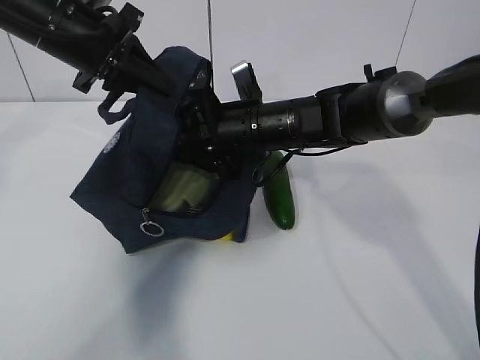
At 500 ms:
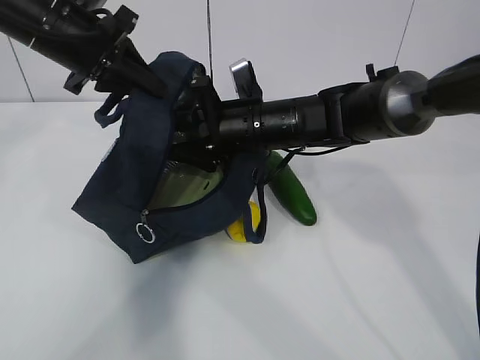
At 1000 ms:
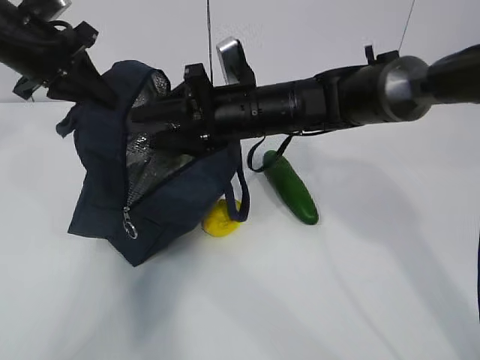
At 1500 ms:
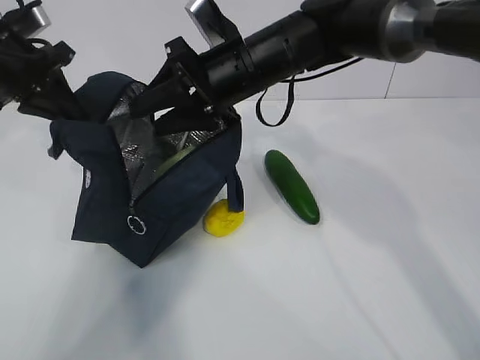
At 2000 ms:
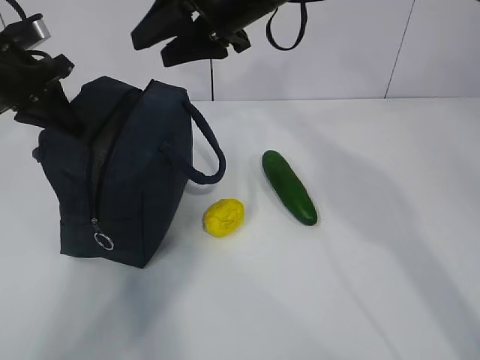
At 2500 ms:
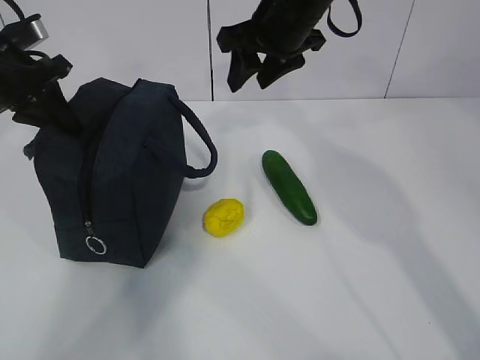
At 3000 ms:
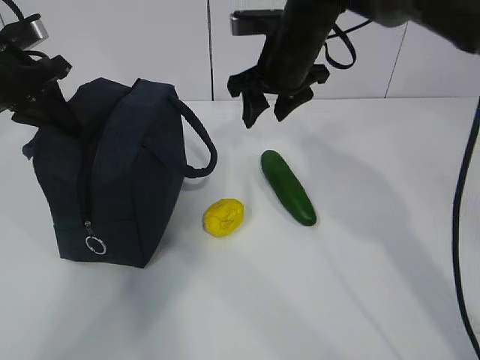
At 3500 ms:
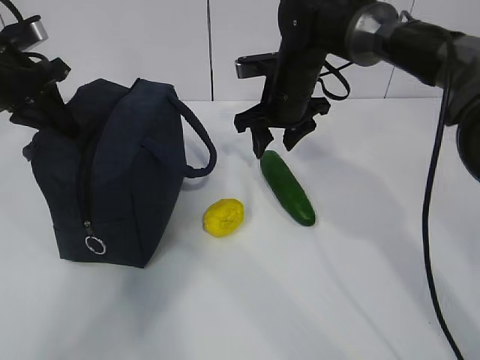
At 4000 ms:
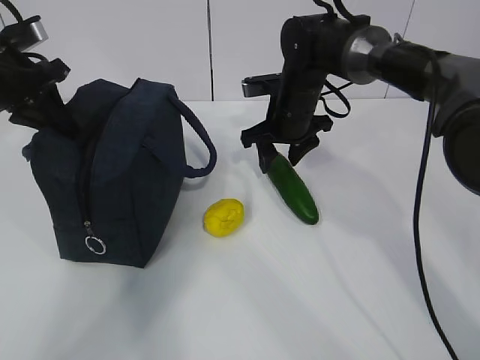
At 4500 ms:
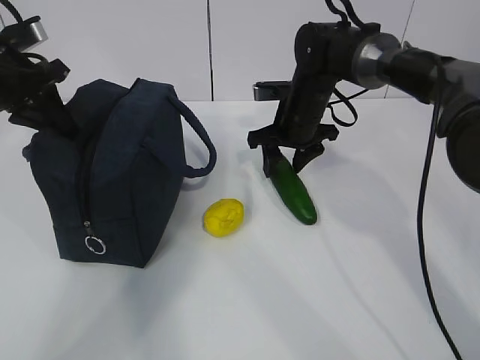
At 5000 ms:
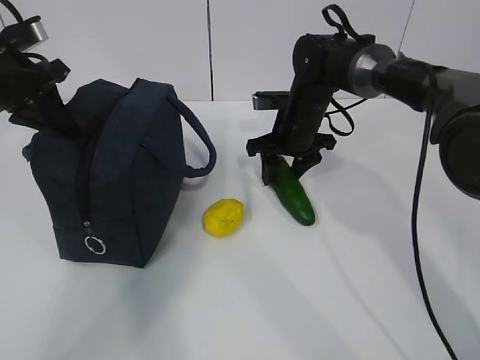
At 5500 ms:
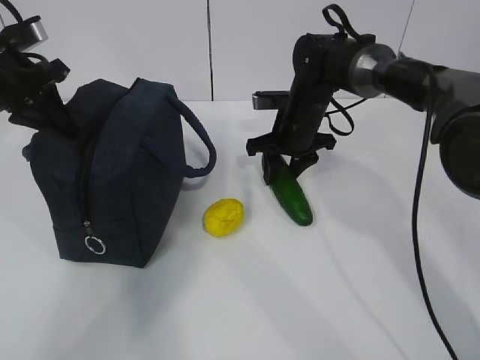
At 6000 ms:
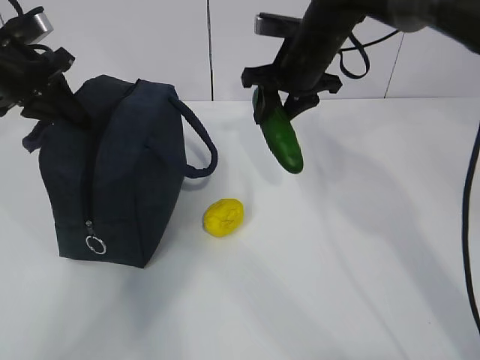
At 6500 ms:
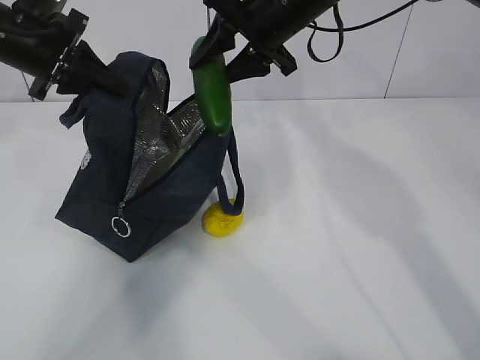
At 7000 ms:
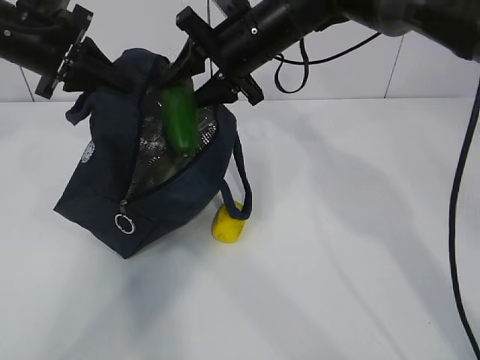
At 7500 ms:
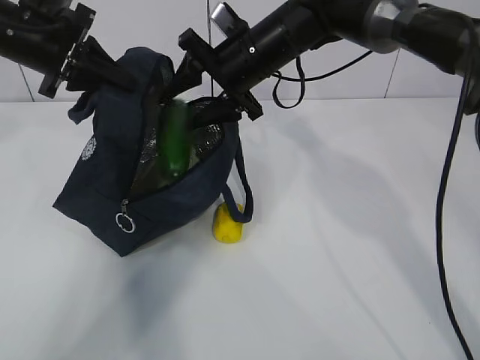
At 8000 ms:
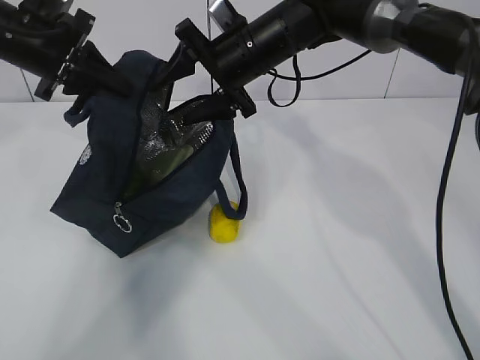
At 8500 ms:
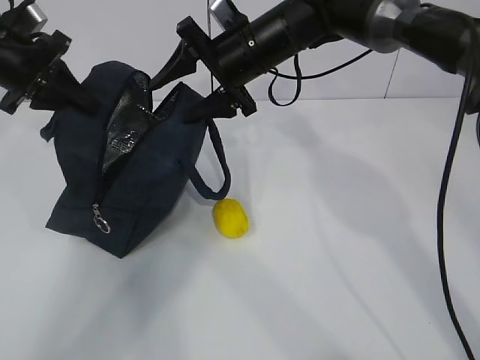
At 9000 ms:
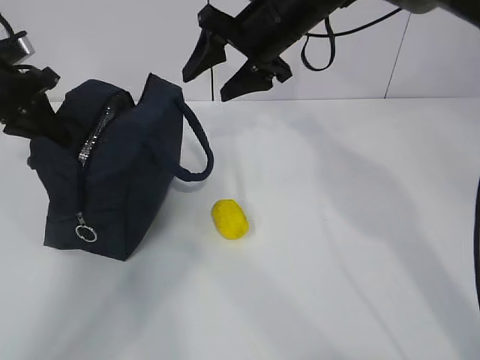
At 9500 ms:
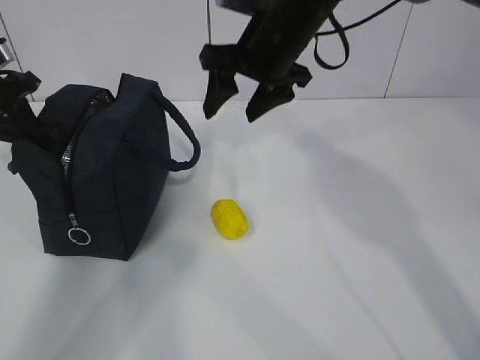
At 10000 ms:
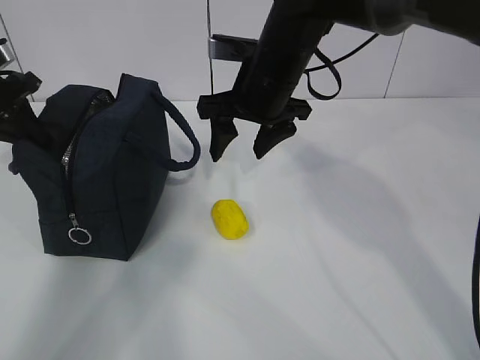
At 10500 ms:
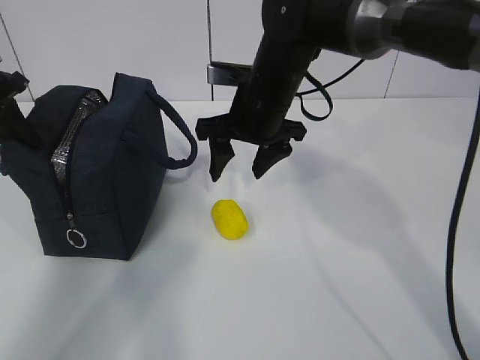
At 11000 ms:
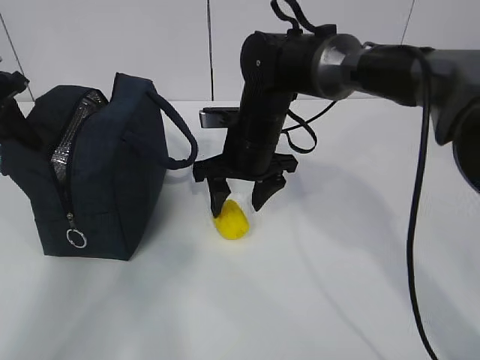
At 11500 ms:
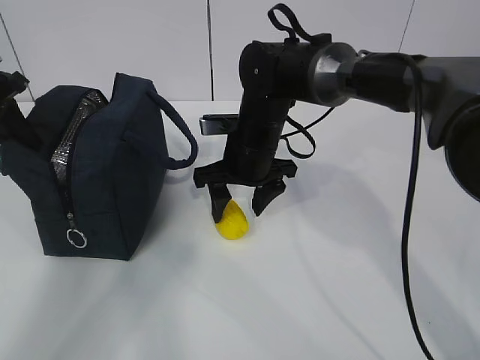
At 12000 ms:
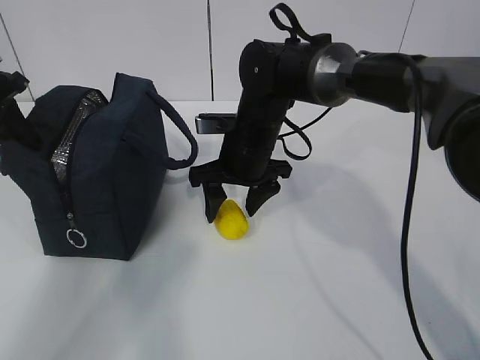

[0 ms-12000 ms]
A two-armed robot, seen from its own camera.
Step, 1500 ms to 2500 ms: Place it into the bag with your right hand.
Step, 3000 ms to 7500 ms: Grab the lemon with your right hand.
Step, 8000 ms to 11000 ms: Secure the lunch bag with your left hand.
0 ms to 2000 ms: The right gripper moves upward, about 15 cm, while the left gripper moves to the left, some 10 cm.
2000 ms to 4000 ms: The right gripper heads downward, covering roughly 15 cm.
4000 ms to 6000 ms: The right gripper moves upward, some 5 cm.
6000 ms to 8000 ms: The right gripper moves to the left, about 5 cm, and opens.
8000 ms to 10000 ms: The left gripper heads to the left and downward, covering approximately 10 cm.
10000 ms to 12000 ms: The right gripper is displaced downward by roughly 10 cm.

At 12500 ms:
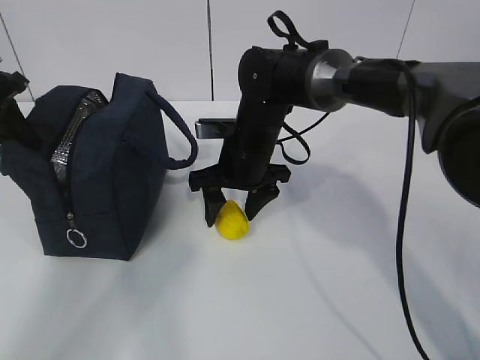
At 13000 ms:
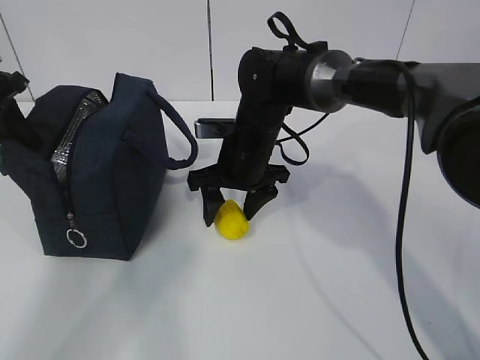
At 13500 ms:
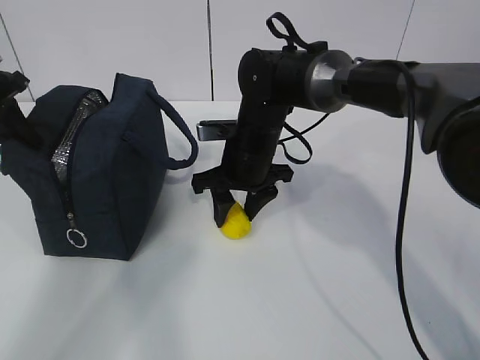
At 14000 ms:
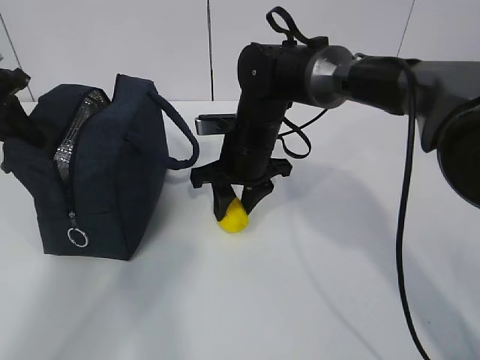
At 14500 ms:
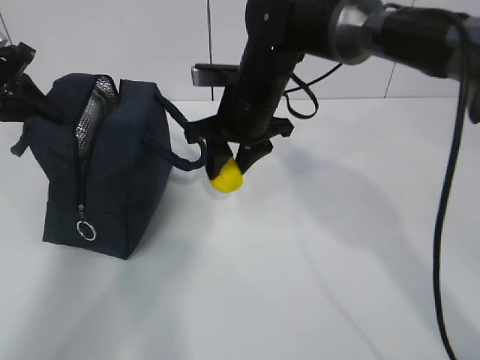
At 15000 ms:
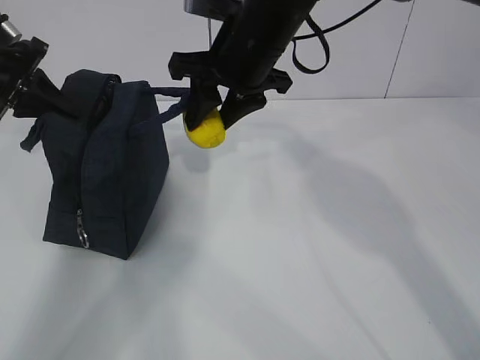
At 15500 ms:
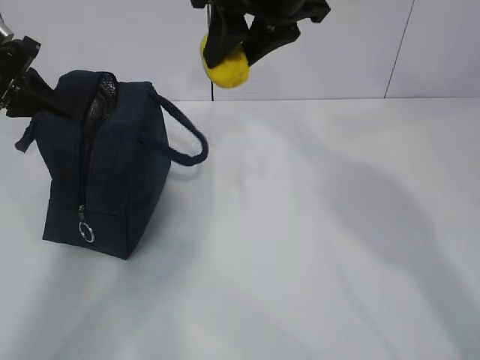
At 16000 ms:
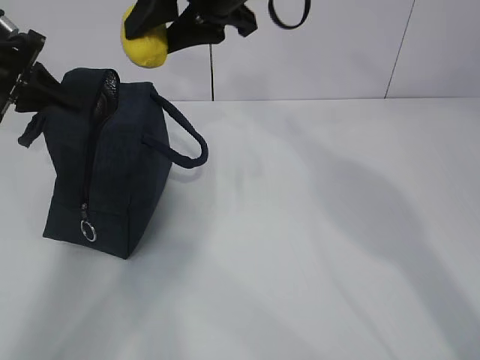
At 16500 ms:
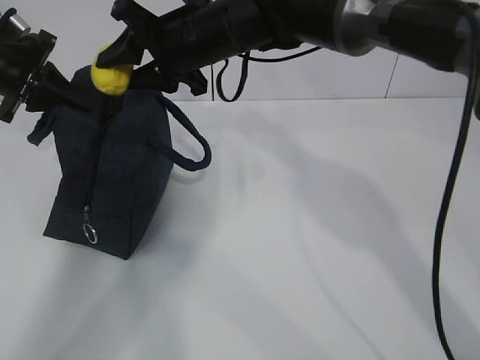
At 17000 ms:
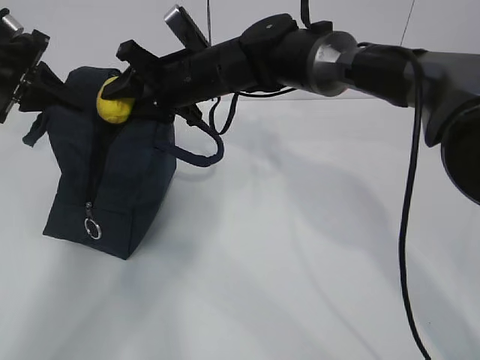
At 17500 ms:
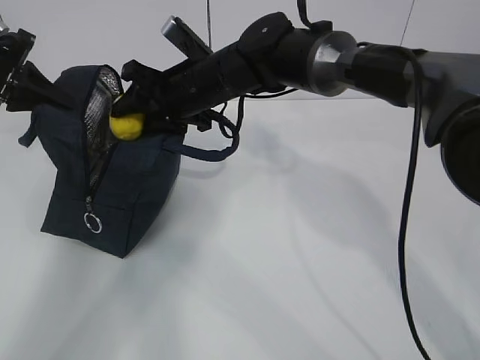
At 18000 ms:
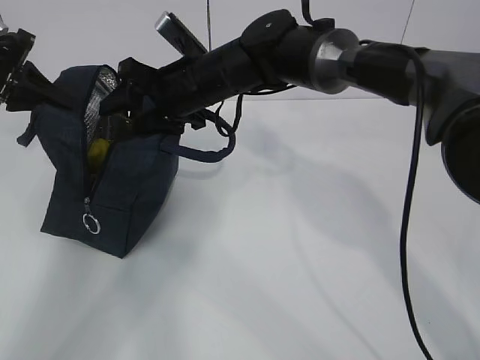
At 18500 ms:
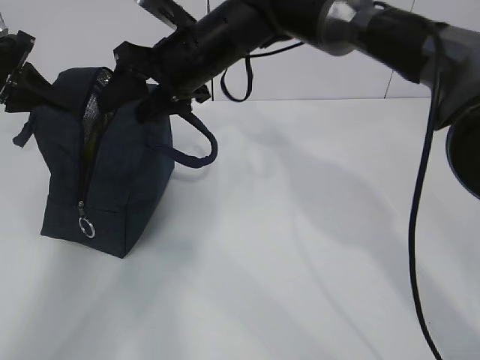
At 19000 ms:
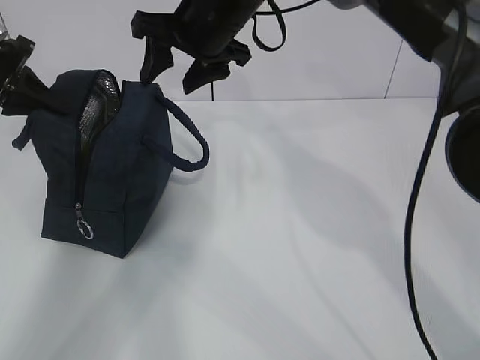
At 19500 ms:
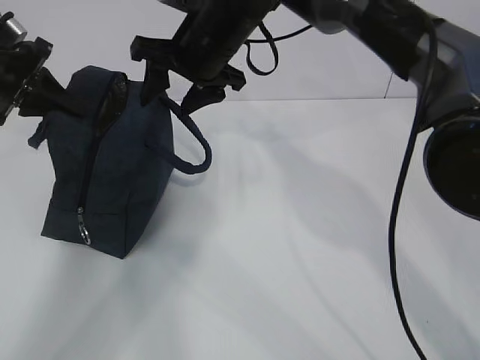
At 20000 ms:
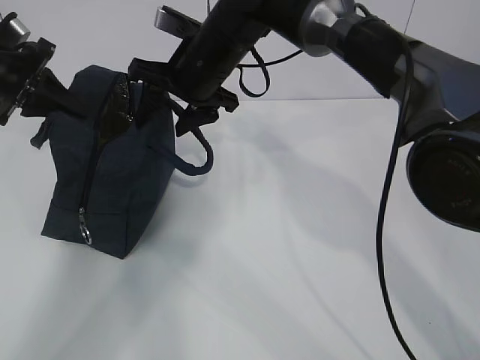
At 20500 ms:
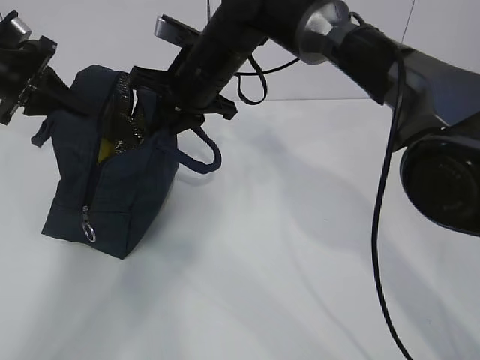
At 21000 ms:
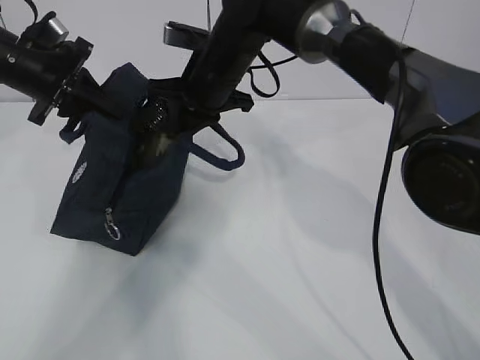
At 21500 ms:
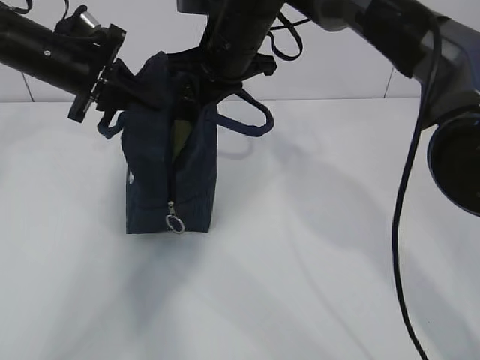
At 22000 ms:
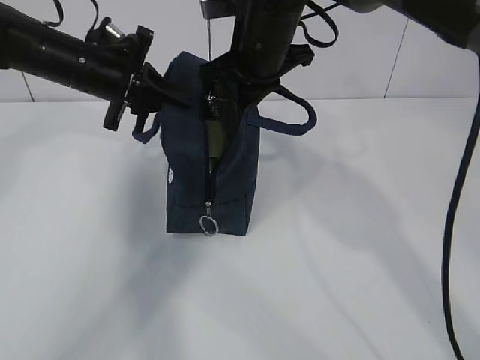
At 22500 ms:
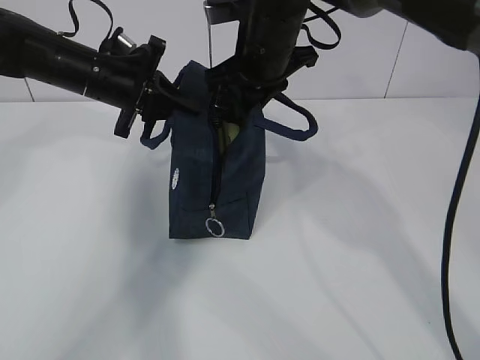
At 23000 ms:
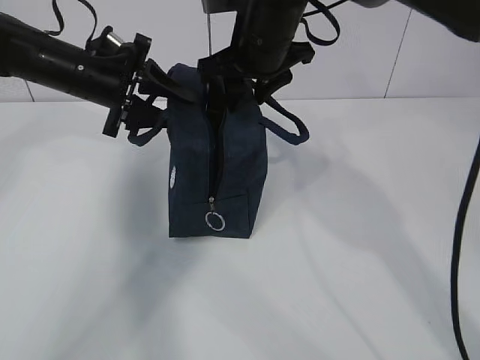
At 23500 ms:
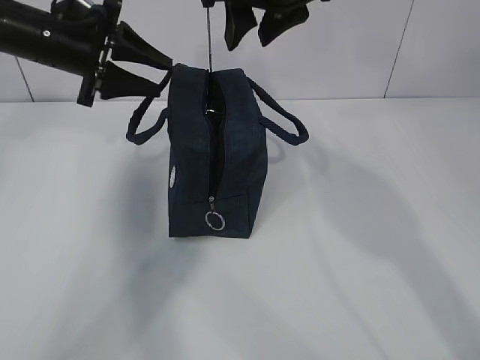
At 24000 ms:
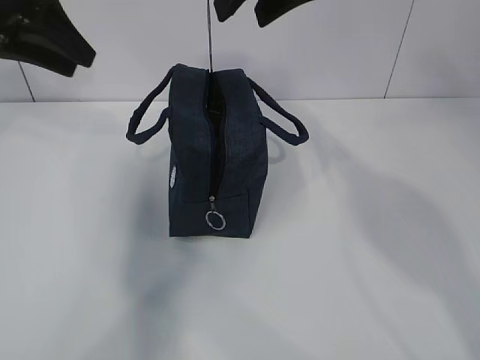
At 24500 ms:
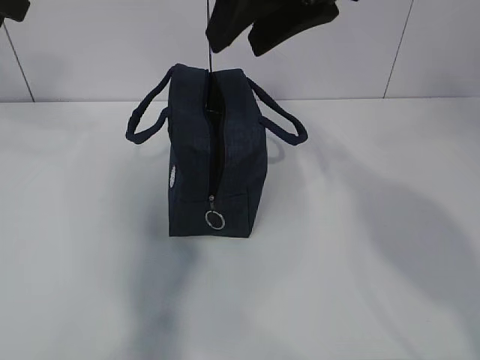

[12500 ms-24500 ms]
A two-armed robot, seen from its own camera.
Step, 14000 ms to 15500 ms: Move the lunch bag to the right.
12500 ms to 14500 ms: The right gripper is displaced upward by about 5 cm, and closes up.
14500 ms to 16500 ms: The right gripper is displaced upward by some 5 cm.
18500 ms to 20500 ms: The right gripper closes.
20500 ms to 22500 ms: The right gripper goes approximately 5 cm to the right; the left gripper heads to the right, covering roughly 15 cm.
22500 ms to 24500 ms: The left gripper is displaced upward, backward and to the left by about 25 cm, and opens its fingers, while the right gripper is displaced backward and upward by approximately 20 cm, and opens its fingers.

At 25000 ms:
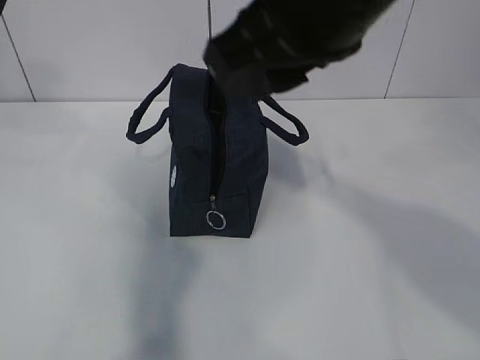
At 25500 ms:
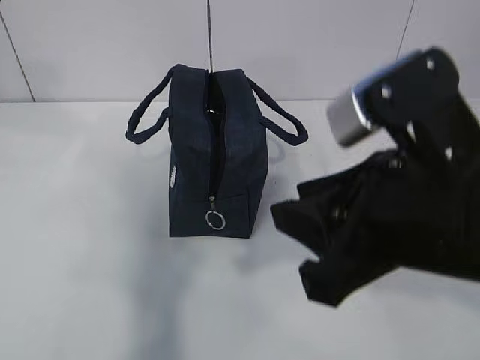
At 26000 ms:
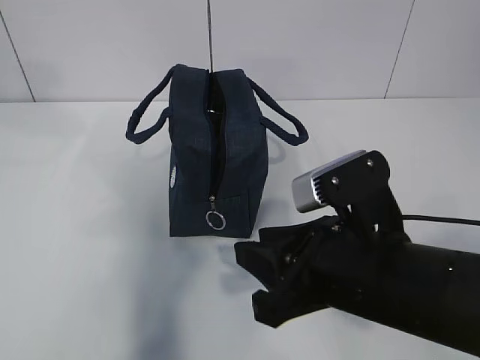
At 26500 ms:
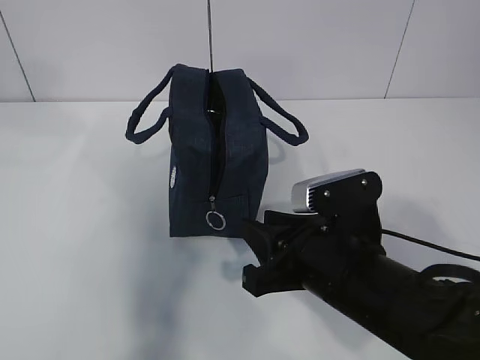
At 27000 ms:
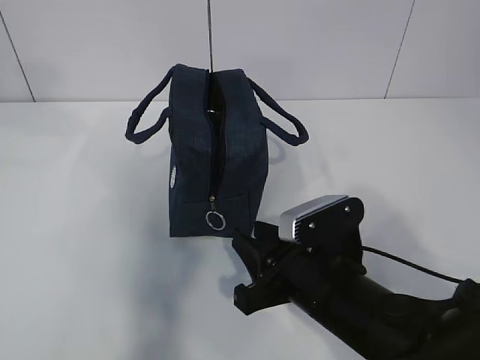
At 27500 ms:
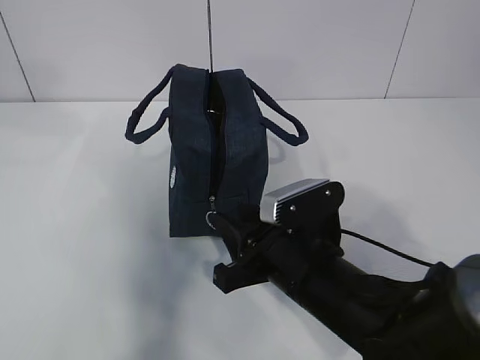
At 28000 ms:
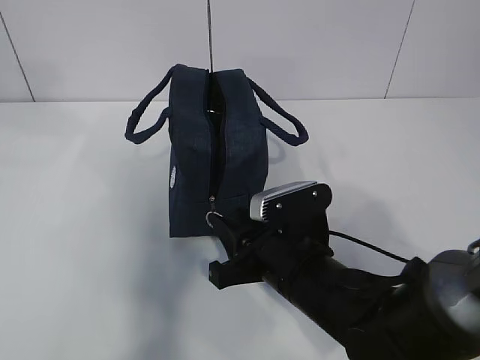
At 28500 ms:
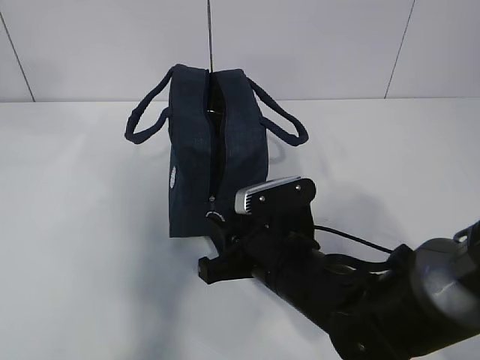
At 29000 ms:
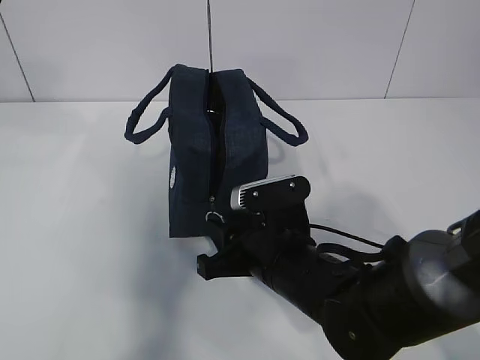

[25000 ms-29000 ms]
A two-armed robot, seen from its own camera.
25000 ms to 27000 ms: The right gripper shifts about 30 cm downward.
27000 ms to 29000 ms: The right gripper ends up roughly 5 cm from where it was.
